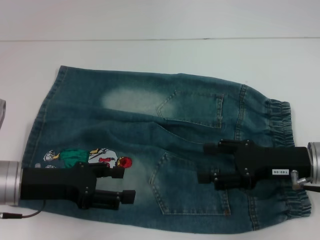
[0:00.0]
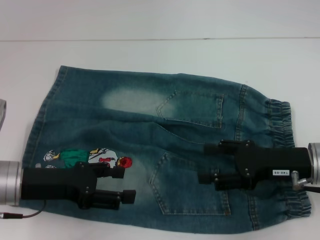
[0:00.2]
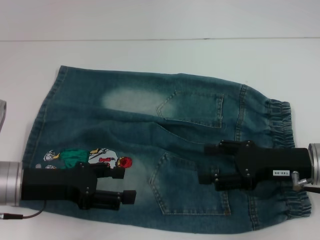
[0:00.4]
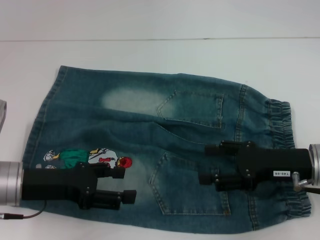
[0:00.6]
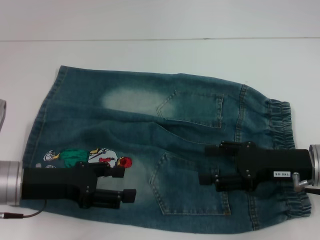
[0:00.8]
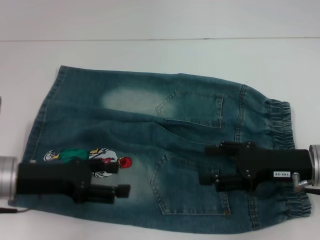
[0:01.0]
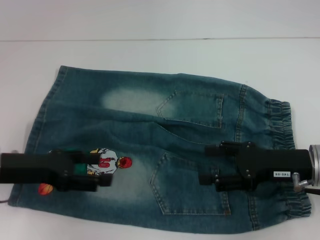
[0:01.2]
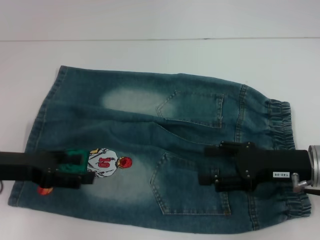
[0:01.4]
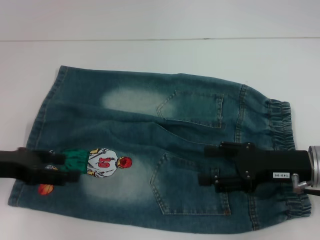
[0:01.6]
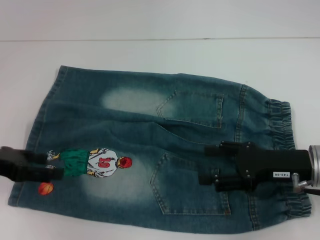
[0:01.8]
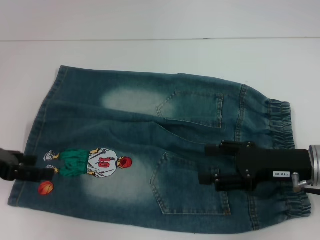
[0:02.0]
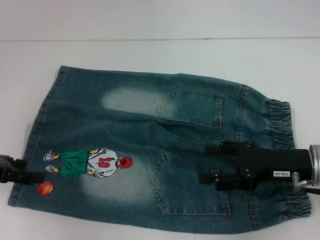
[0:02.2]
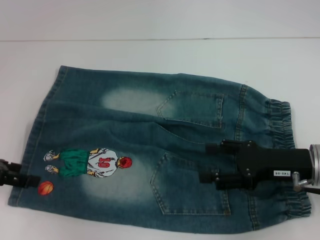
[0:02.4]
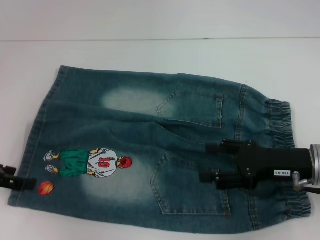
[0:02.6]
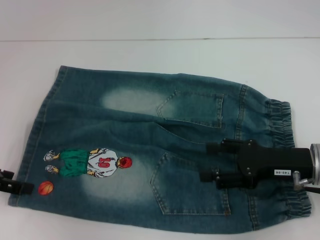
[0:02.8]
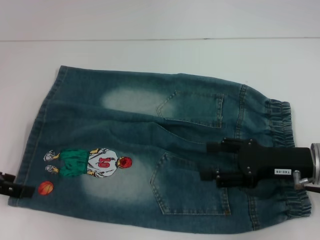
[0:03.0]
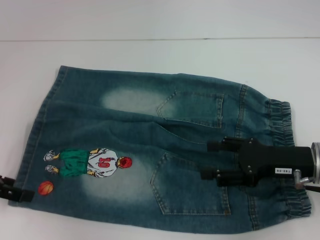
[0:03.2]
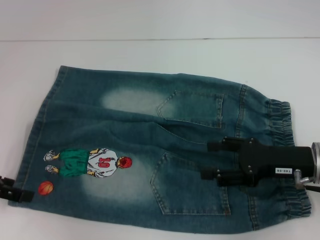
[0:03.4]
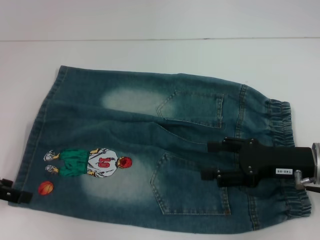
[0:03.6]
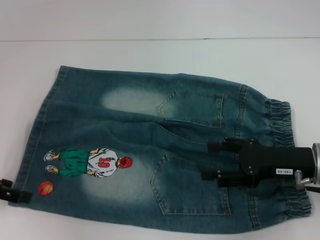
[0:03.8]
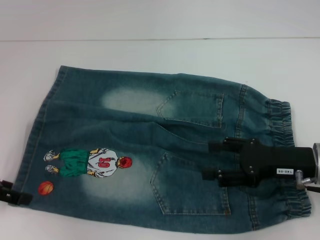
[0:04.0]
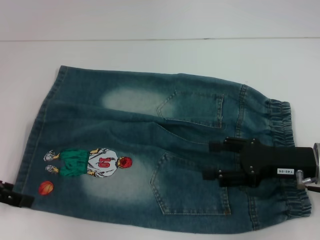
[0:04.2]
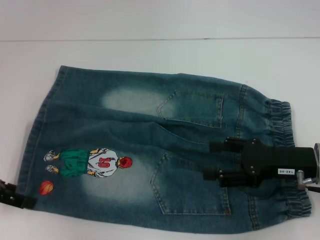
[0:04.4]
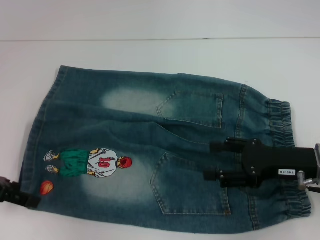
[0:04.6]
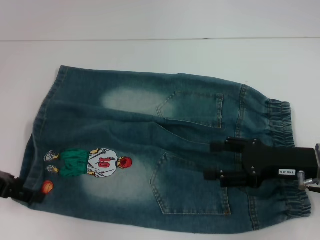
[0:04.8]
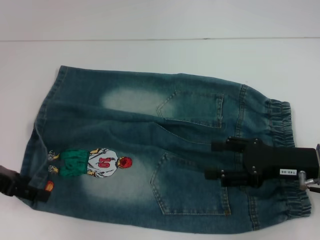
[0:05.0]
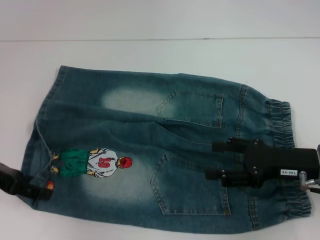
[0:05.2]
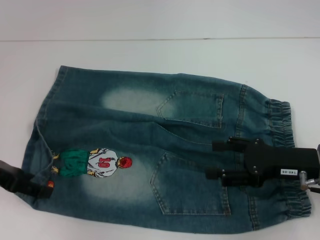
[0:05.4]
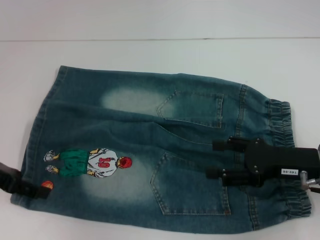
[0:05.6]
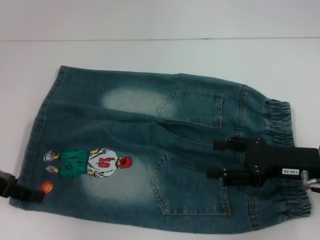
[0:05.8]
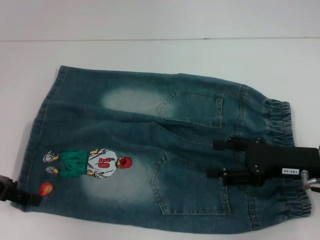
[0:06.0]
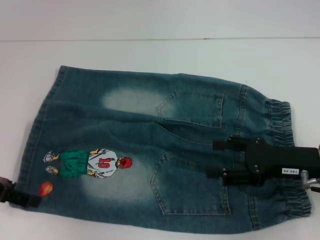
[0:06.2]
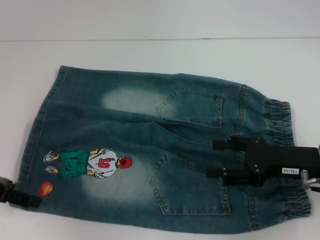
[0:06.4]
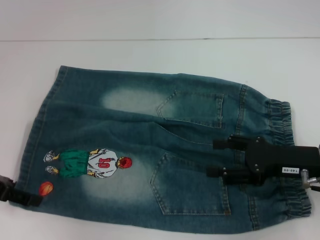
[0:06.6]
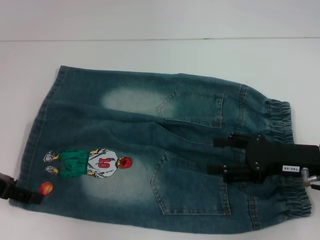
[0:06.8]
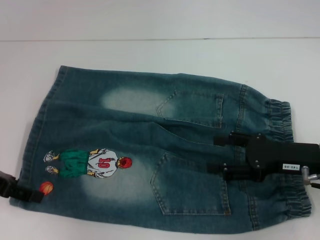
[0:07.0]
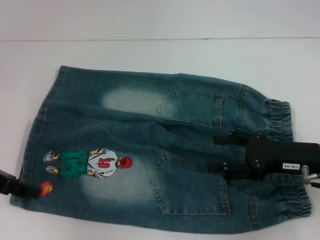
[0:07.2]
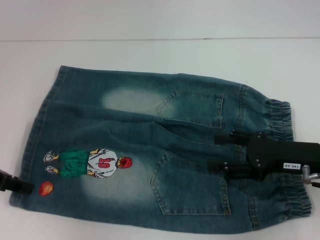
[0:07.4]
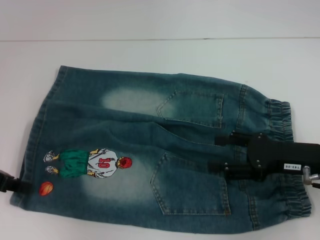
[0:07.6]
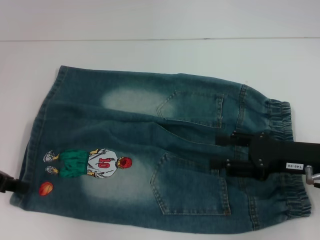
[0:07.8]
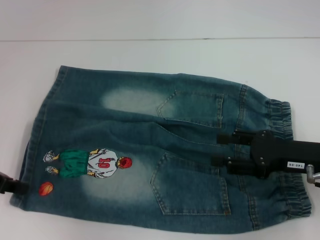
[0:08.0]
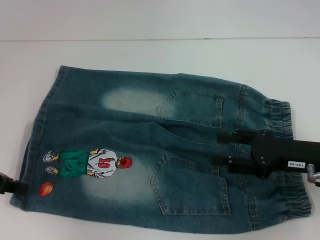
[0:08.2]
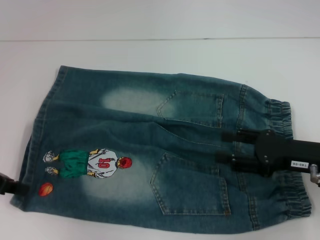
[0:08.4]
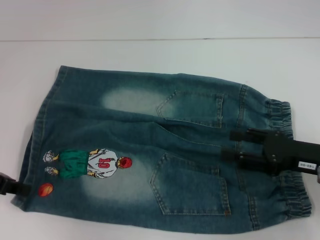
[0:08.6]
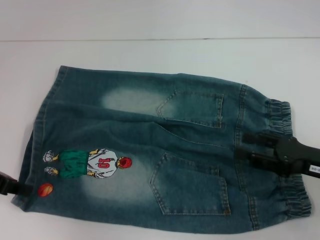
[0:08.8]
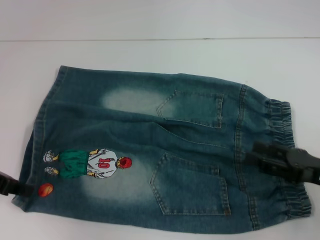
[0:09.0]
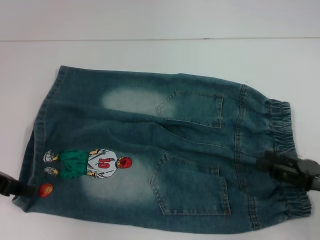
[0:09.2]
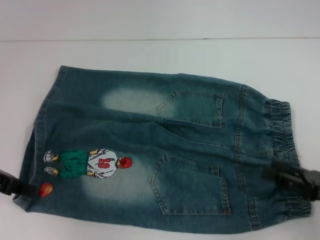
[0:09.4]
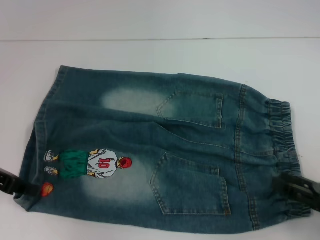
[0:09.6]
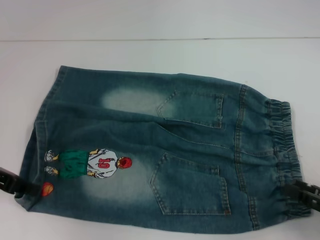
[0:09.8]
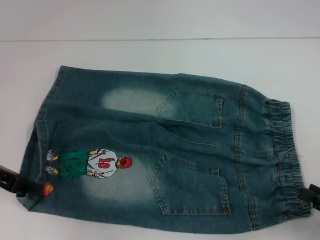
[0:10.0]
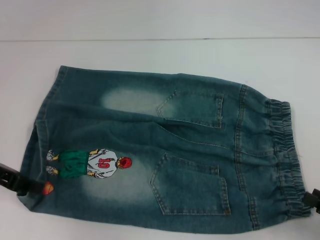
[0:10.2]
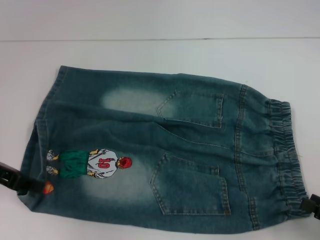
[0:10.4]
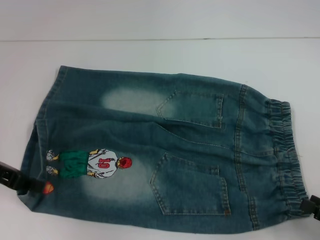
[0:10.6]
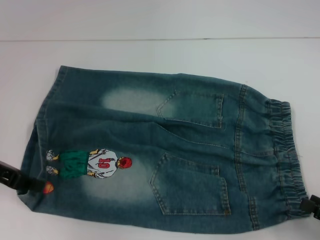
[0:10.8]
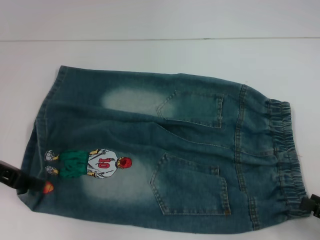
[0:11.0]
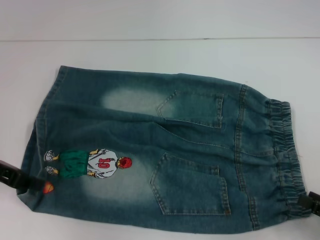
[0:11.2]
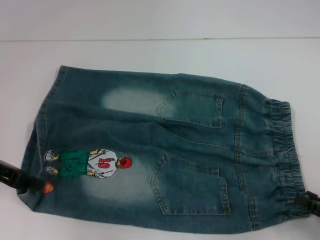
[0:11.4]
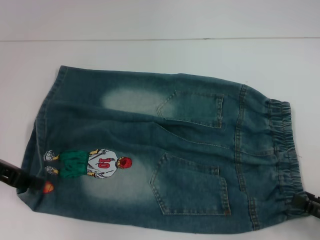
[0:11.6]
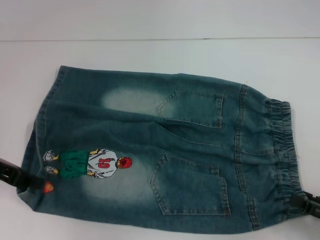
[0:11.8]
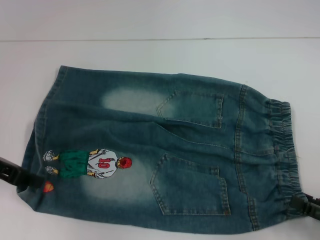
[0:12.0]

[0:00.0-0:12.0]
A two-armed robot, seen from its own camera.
Step, 0:00.0 to 0:08.8: Grab the lower left pant leg with your left hand.
0:00.0 to 0:01.6: The left gripper moves to the left, about 5 cm.
0:03.0 to 0:04.4: The two grippers keep their place.
0:04.4 to 0:06.0: The grippers make only small movements.
0:06.0 to 0:07.6: The left gripper closes up.
0:07.6 to 0:09.0: The right gripper moves some 5 cm.
0:09.0 to 0:10.4: The right gripper is displaced backward and to the right by roughly 10 cm.
0:10.4 to 0:12.0: The grippers make only small movements.

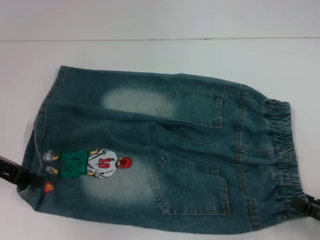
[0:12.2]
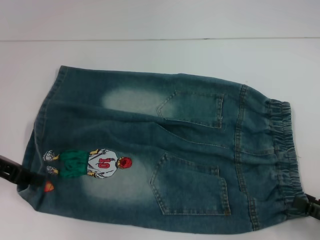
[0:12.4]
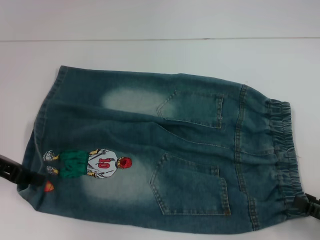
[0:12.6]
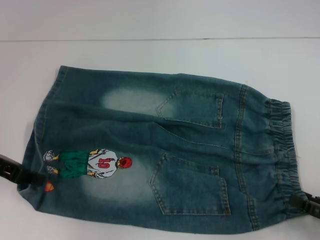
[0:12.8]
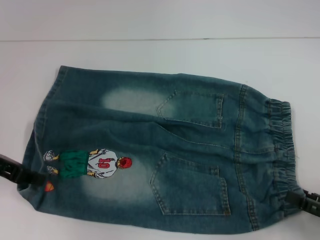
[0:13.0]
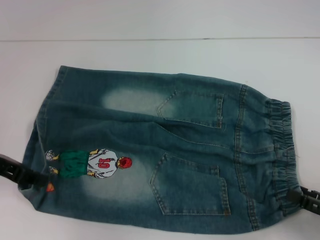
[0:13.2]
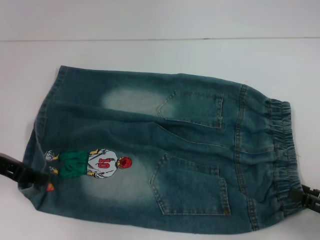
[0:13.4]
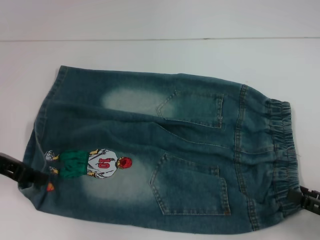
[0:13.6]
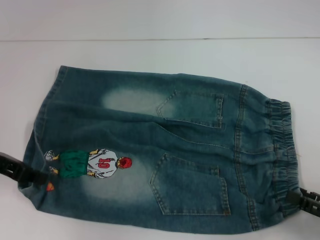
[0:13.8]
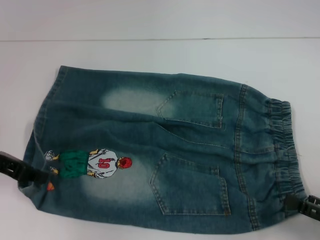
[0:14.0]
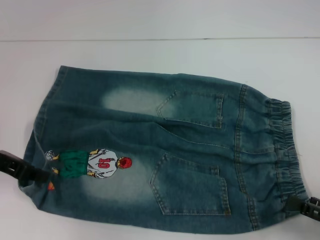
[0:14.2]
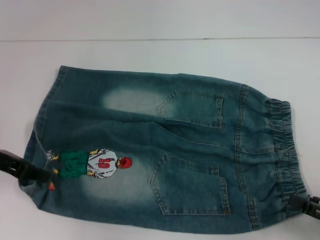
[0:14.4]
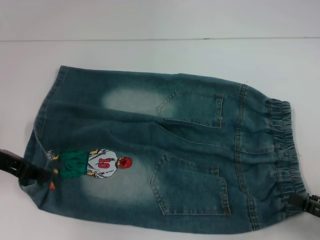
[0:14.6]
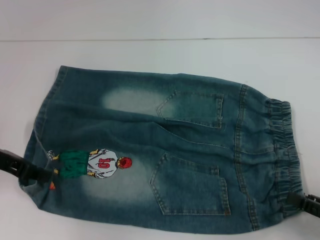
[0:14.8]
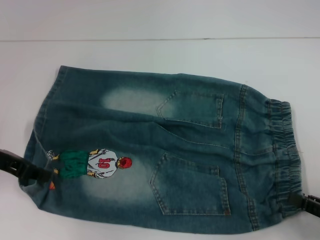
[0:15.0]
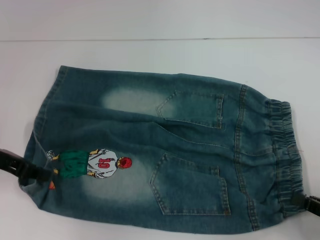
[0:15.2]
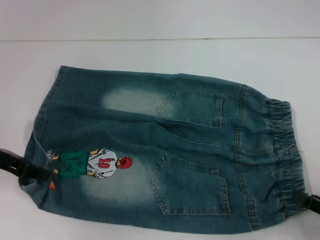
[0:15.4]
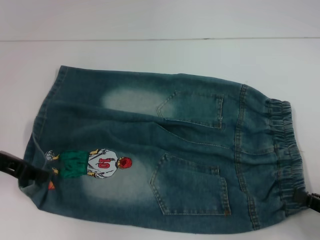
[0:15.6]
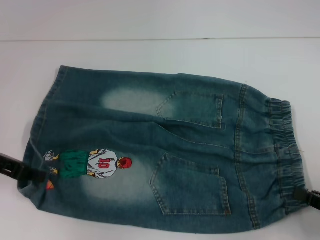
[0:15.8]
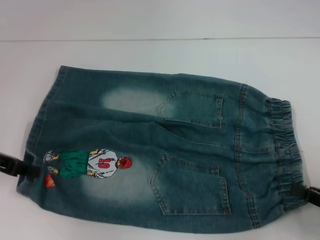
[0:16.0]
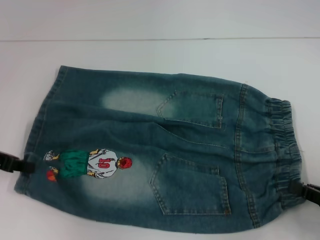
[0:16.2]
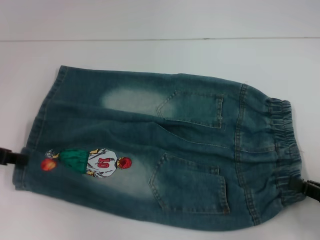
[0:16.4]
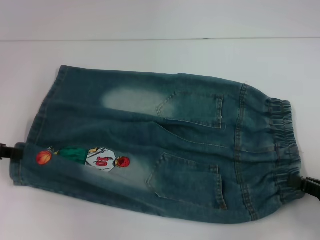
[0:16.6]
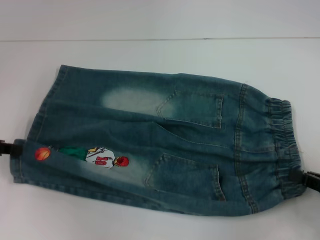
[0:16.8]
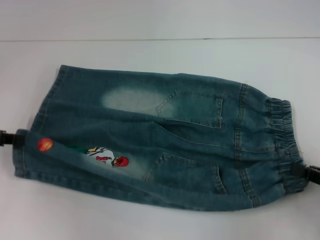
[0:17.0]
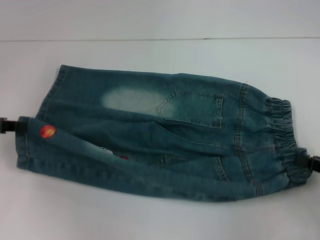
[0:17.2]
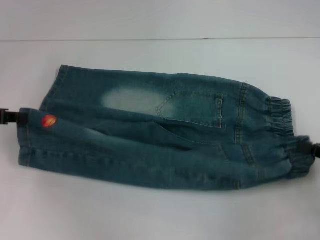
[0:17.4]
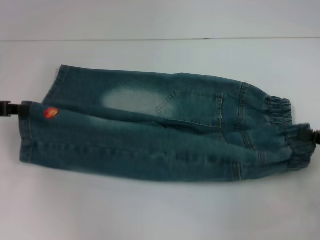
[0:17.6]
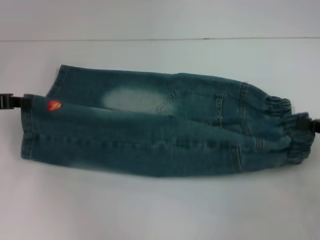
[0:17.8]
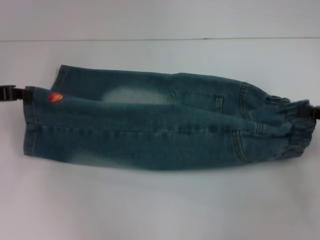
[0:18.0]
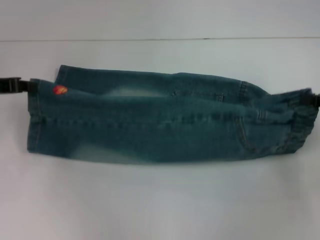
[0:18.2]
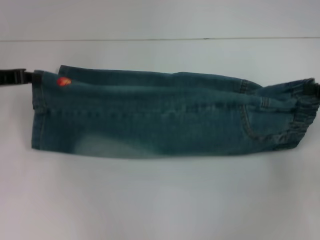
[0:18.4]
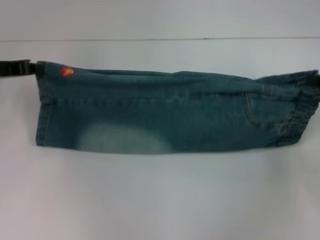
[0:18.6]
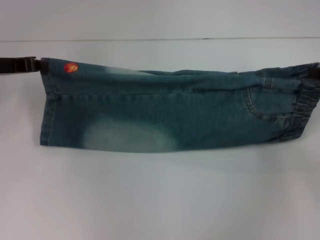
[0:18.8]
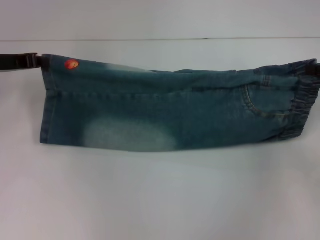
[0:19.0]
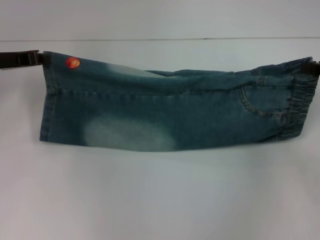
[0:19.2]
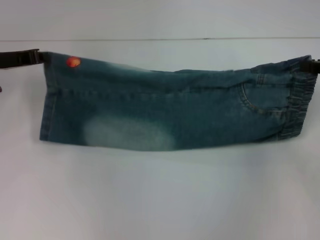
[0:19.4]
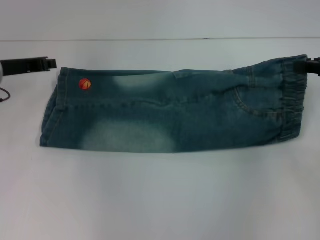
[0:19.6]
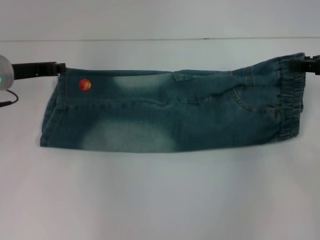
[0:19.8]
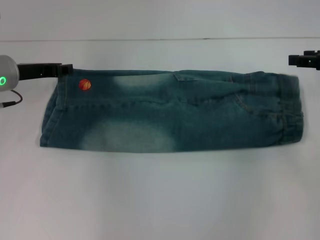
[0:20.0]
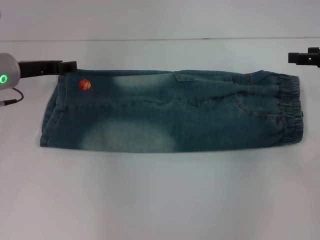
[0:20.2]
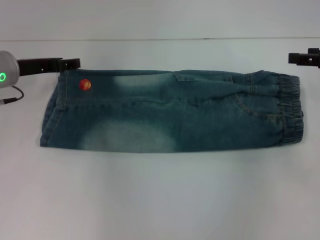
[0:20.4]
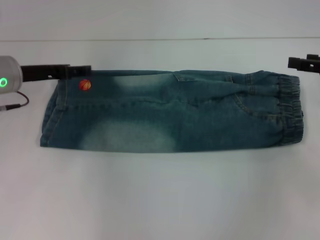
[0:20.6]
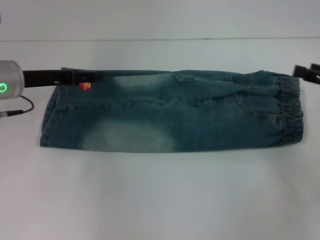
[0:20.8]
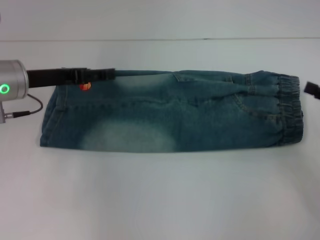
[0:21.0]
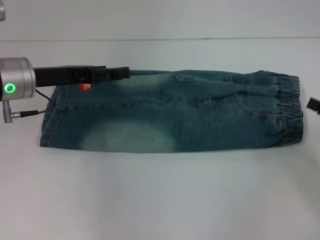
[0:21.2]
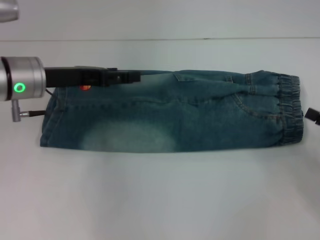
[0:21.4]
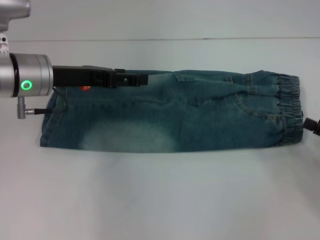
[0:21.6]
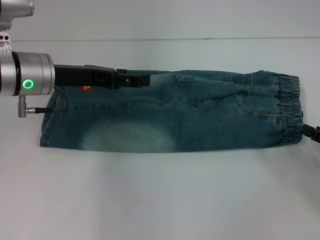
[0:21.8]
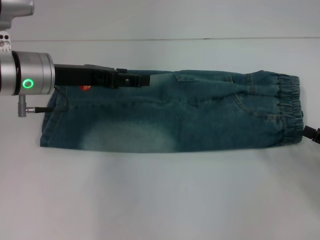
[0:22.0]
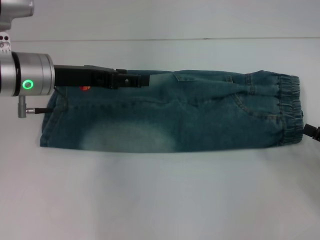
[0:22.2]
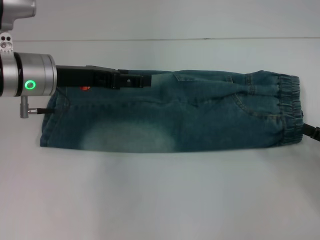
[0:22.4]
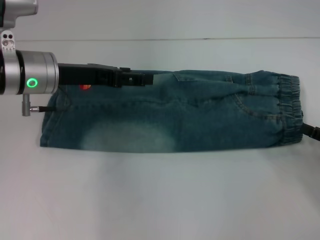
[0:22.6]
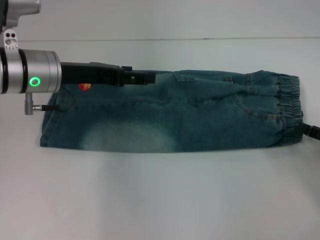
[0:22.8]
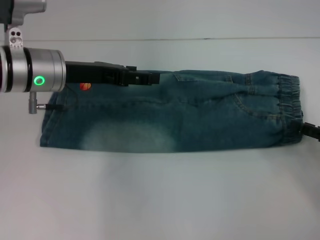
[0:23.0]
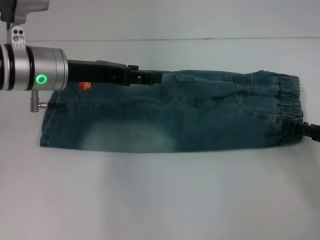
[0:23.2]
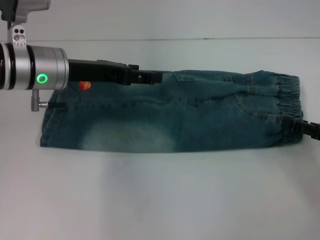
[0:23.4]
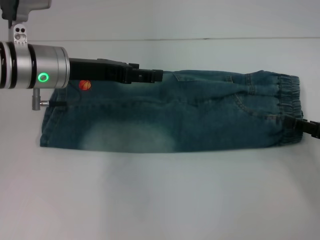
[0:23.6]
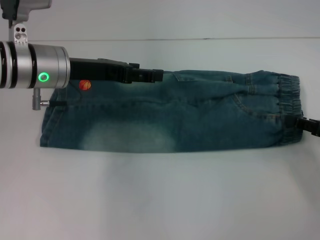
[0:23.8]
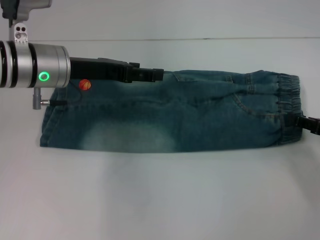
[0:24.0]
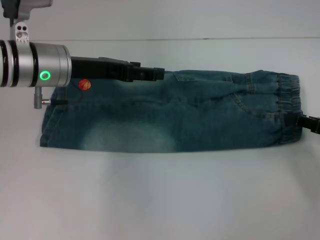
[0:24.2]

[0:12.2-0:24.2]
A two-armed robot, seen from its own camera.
Step, 0:15.8 to 0:19.4: Fold upward with your left hand.
Step, 0:19.6 to 0:20.0: Fold upward with your right hand.
0:12.2 to 0:13.8: Both grippers stay put.
0:13.8 to 0:15.2: The right gripper closes its fingers.
0:15.2 to 0:16.6: The grippers move only a little.
0:16.6 to 0:18.2: The right gripper is displaced forward and upward by approximately 15 cm; the left gripper goes approximately 5 cm forward.
0:18.2 to 0:19.8: The left gripper shifts roughly 5 cm to the right. The right gripper is displaced forward by about 5 cm.
0:19.8 to 0:21.2: The right gripper moves backward and downward, about 15 cm, and opens up; the left gripper moves some 5 cm, and opens.
0:21.2 to 0:22.6: The grippers move only a little.
0:22.6 to 0:24.2: The right gripper closes.
